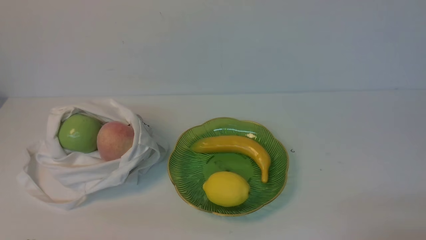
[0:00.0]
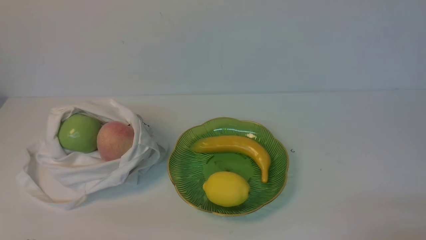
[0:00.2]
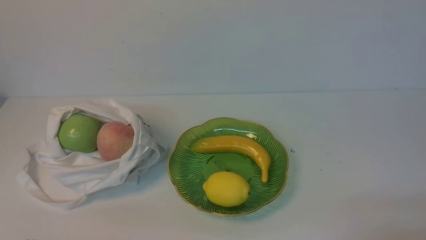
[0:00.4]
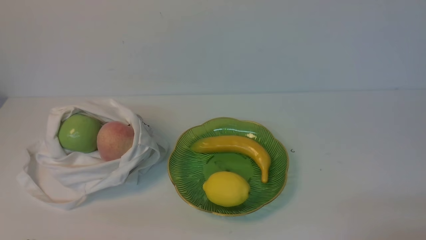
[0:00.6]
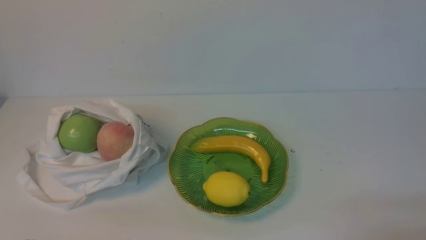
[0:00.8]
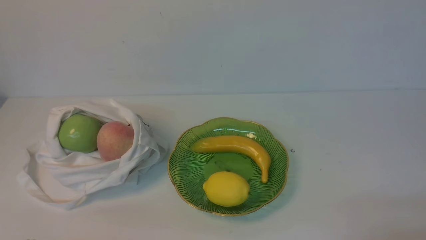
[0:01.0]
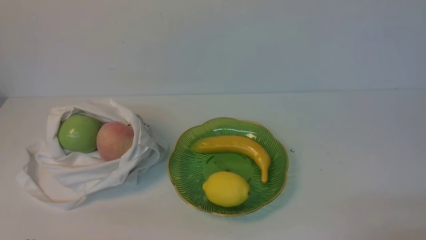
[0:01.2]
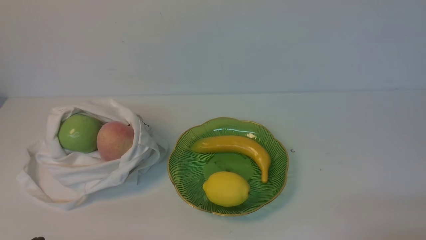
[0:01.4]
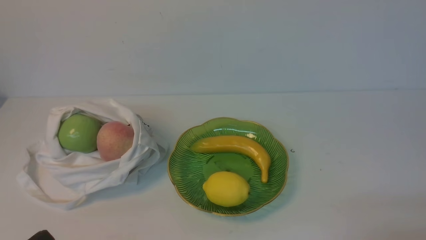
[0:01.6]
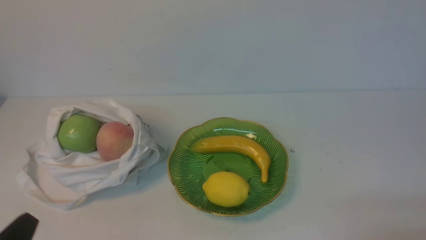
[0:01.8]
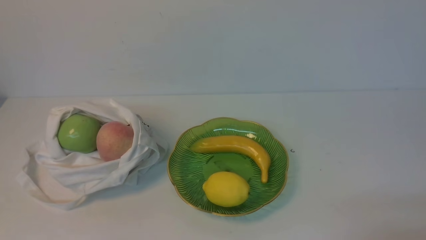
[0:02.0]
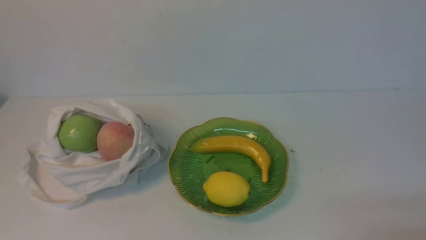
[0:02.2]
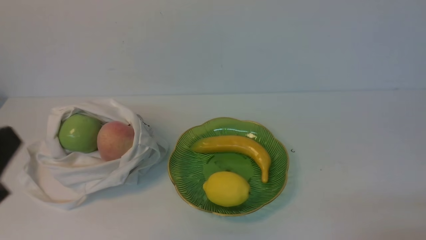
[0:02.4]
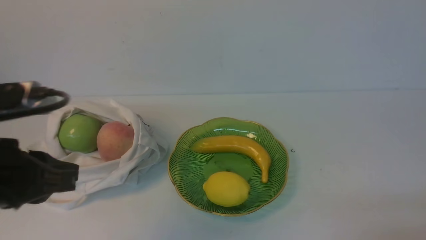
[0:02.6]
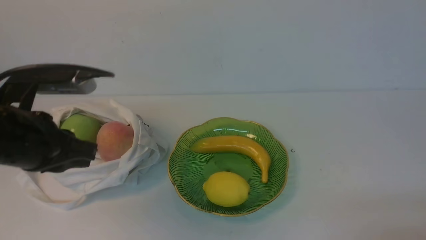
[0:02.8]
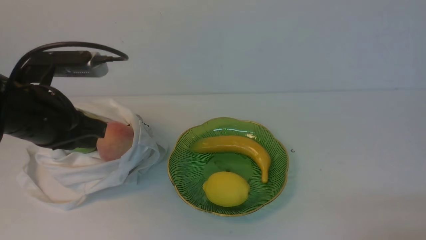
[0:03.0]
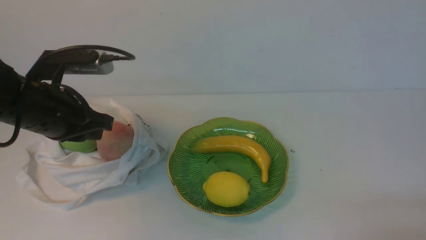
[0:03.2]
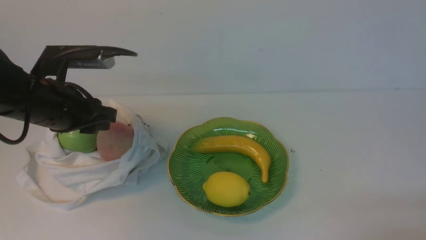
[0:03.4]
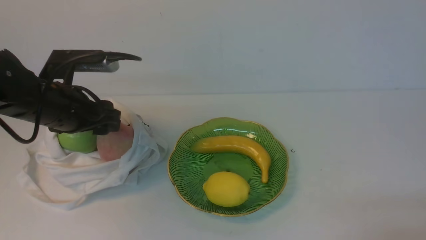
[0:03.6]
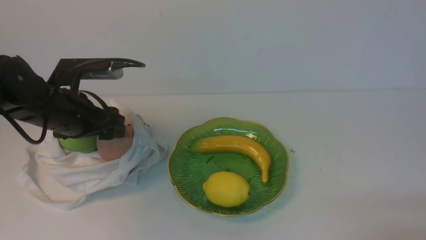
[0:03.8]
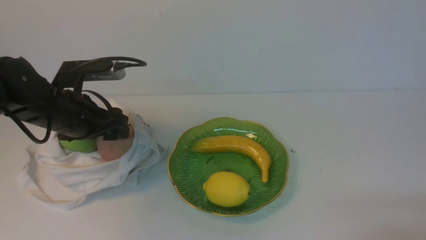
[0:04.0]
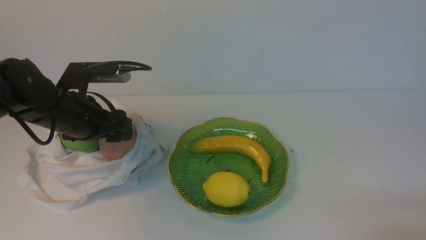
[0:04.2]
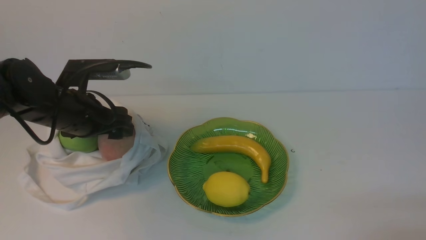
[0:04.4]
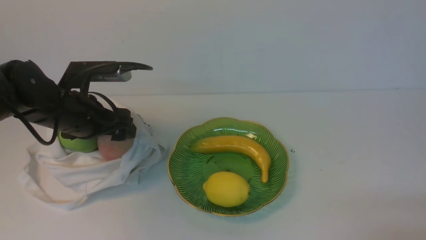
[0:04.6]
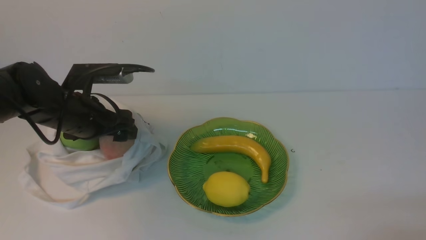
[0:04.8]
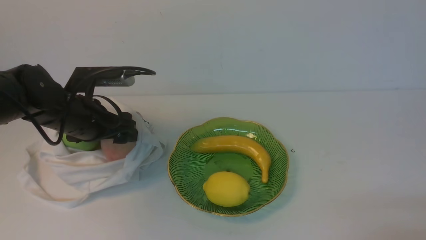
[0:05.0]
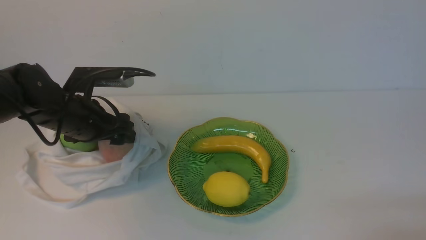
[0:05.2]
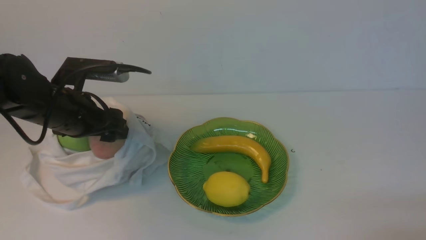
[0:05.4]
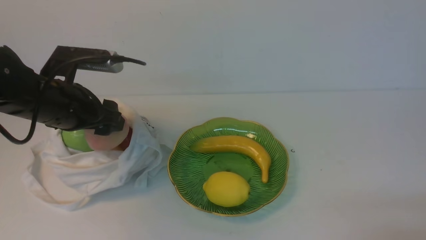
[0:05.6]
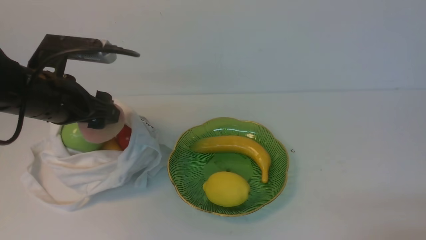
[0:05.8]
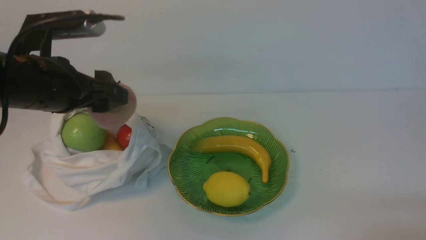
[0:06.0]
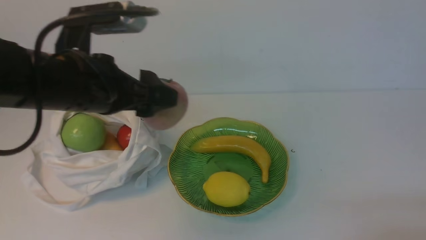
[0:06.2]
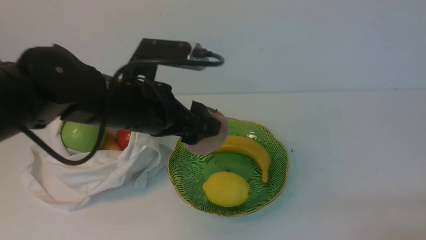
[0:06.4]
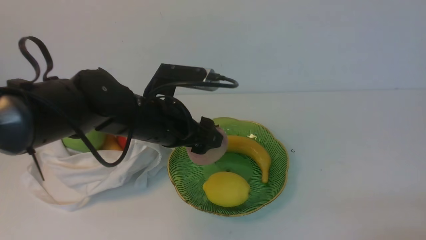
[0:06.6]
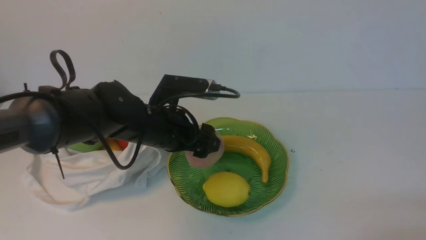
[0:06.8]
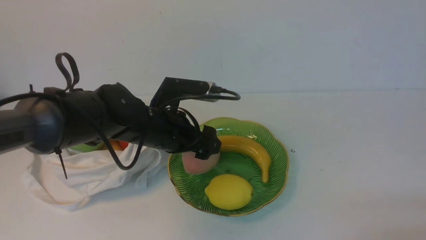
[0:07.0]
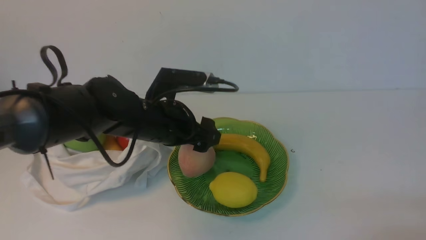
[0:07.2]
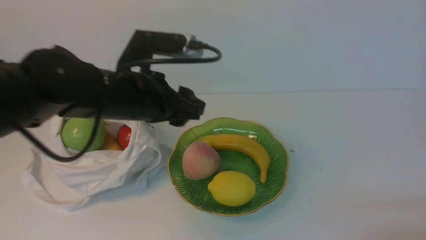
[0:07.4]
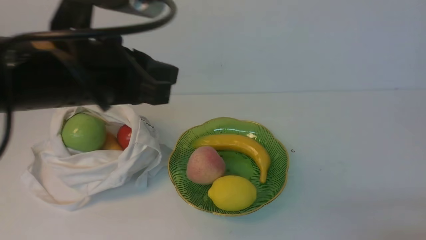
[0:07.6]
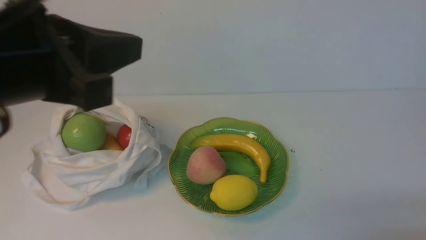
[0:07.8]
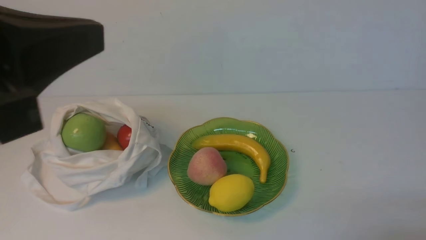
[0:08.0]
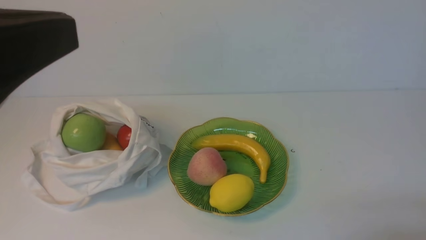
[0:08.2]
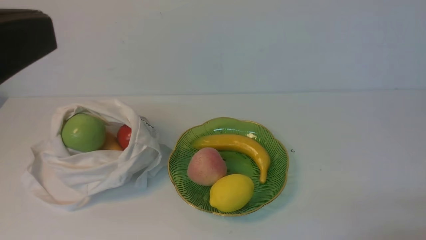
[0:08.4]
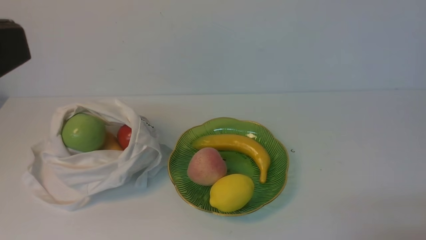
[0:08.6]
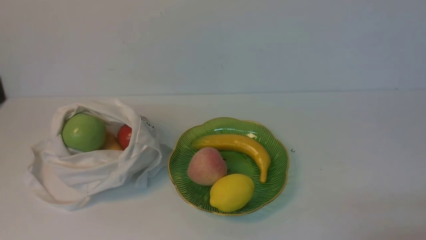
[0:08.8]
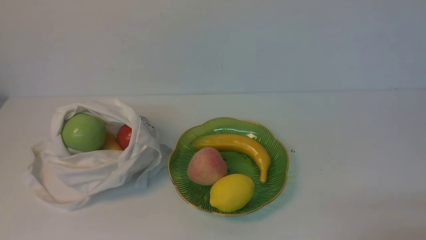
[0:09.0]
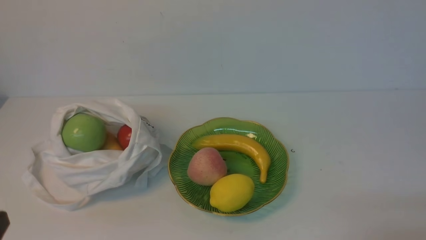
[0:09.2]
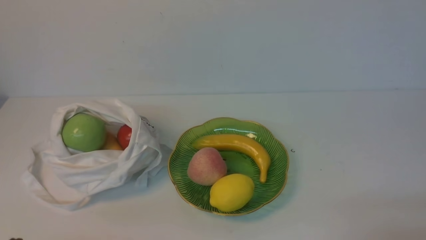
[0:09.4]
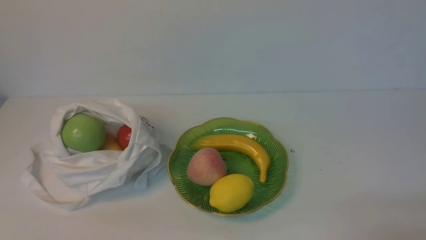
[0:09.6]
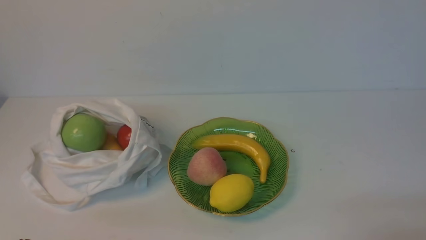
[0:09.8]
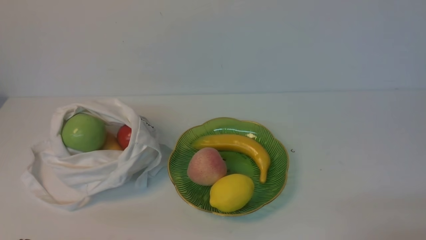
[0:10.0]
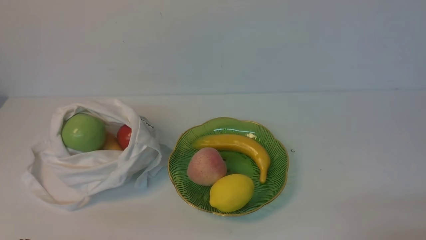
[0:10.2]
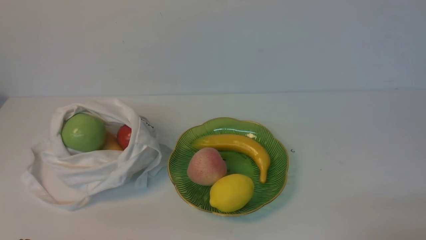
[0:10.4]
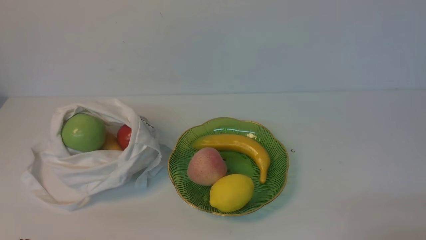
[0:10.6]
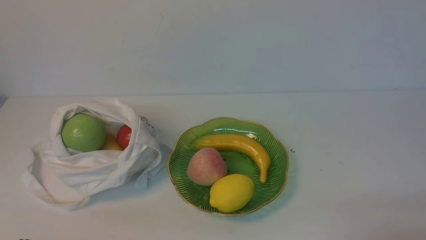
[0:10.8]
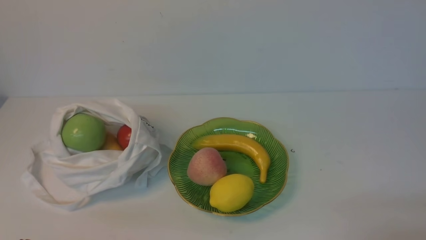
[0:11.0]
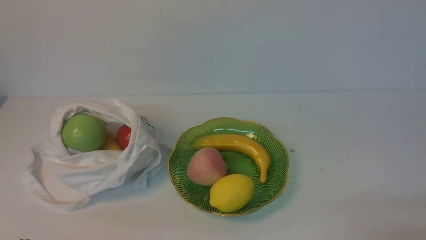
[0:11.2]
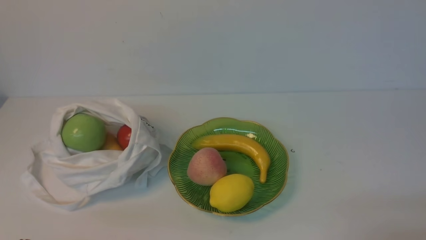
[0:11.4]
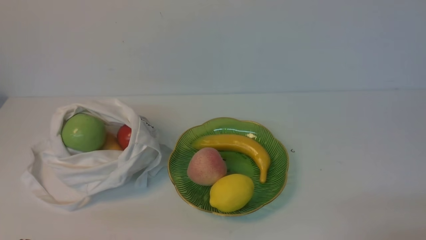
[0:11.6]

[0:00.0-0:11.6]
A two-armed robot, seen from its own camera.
Step, 0:00.0 to 0:05.4: use the left arm to grab a peach from the bag.
Step, 0:05.6 to 0:07.2: use the left arm to put the peach into the empty plate on the right.
0:01.4 to 0:02.8: The left gripper heads upward and forward, covering roughly 20 cm.
0:02.8 to 0:04.4: The left gripper moves forward and downward, roughly 15 cm, and opens.
0:04.4 to 0:05.8: The left gripper shifts by about 5 cm.
0:05.8 to 0:07.2: The left gripper travels to the right and downward by some 15 cm.
0:07.2 to 0:08.8: The left gripper moves backward, upward and to the left, about 35 cm, and closes.
0:10.2 to 0:11.6: The two grippers keep their place.

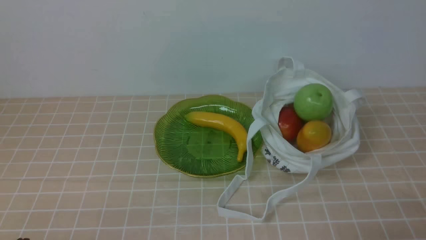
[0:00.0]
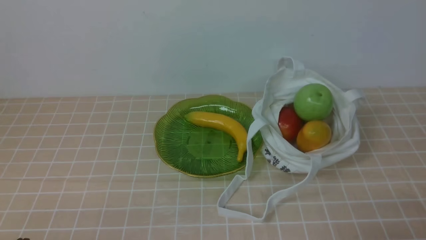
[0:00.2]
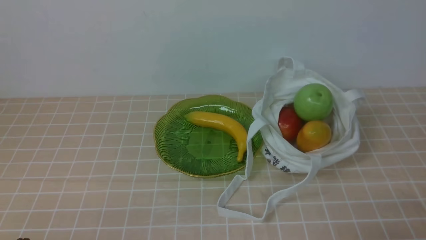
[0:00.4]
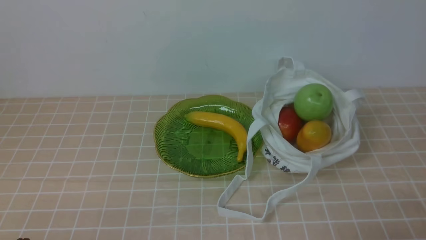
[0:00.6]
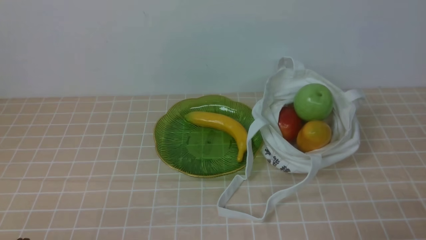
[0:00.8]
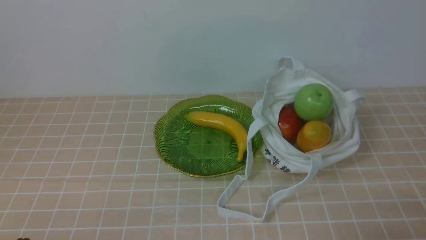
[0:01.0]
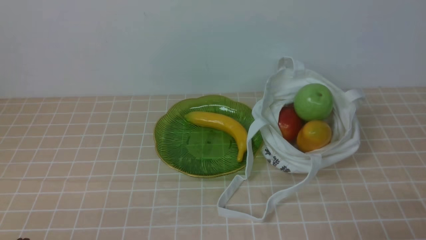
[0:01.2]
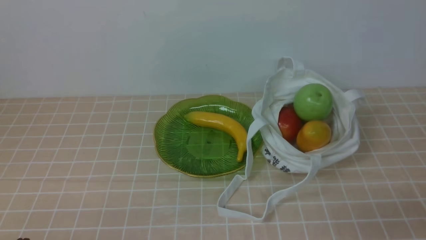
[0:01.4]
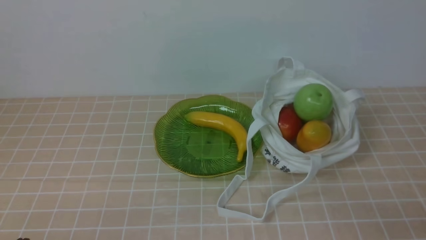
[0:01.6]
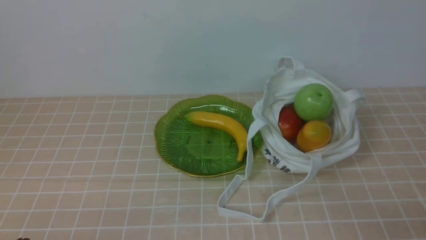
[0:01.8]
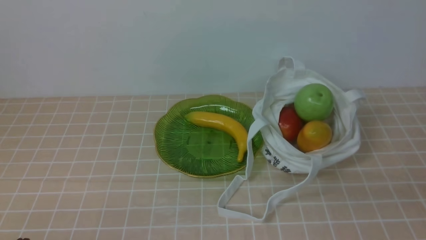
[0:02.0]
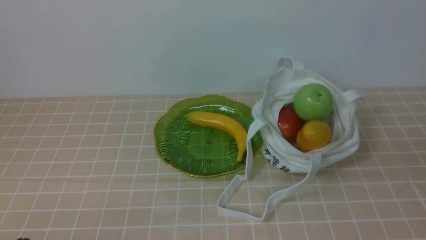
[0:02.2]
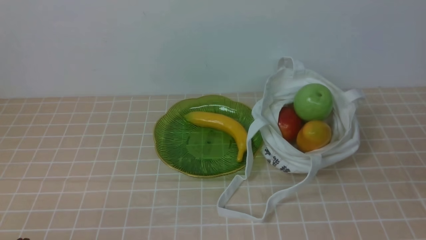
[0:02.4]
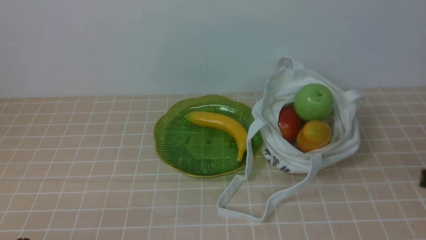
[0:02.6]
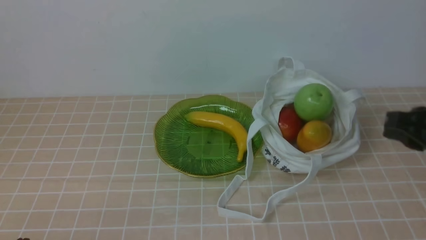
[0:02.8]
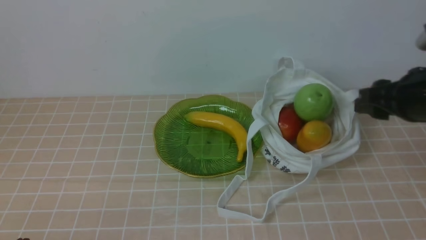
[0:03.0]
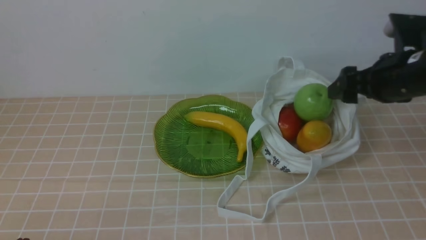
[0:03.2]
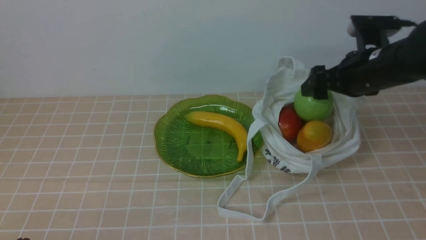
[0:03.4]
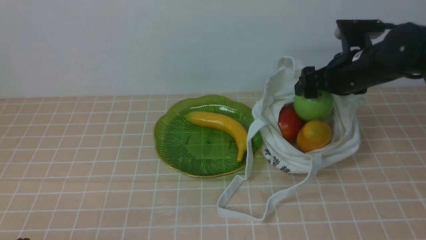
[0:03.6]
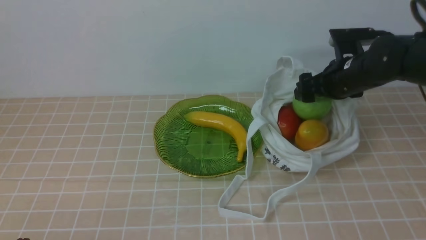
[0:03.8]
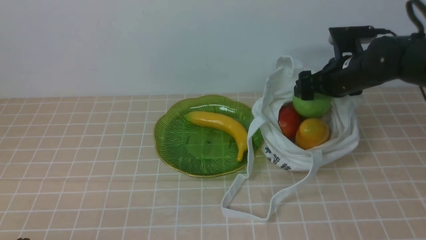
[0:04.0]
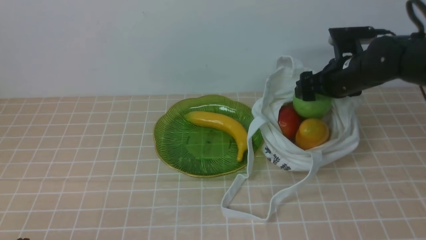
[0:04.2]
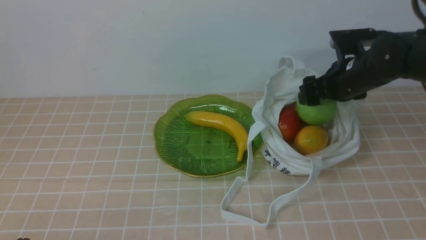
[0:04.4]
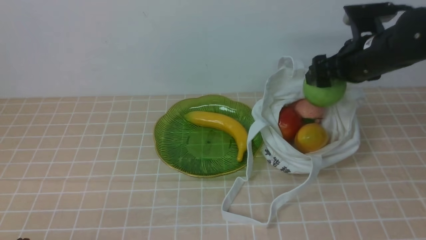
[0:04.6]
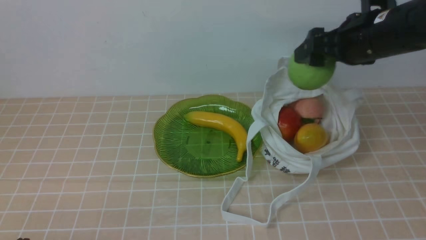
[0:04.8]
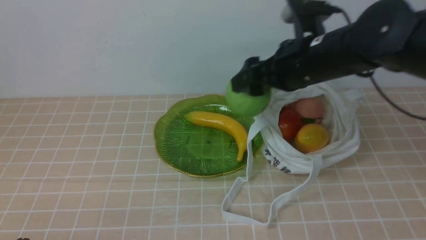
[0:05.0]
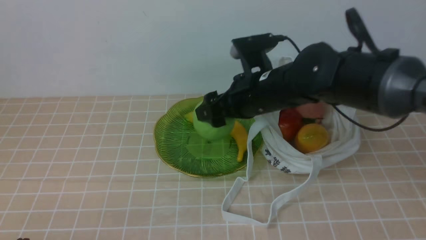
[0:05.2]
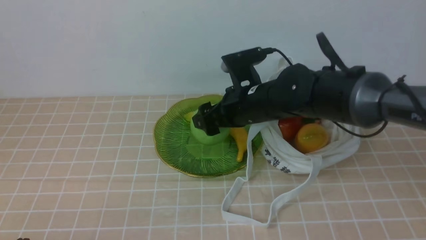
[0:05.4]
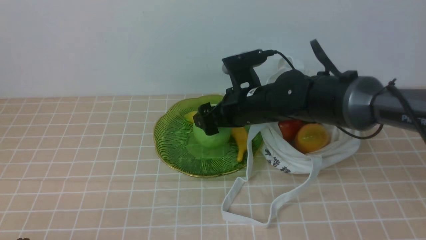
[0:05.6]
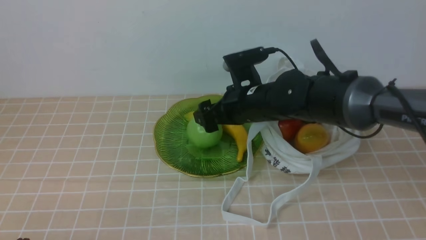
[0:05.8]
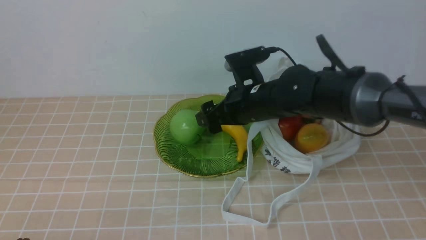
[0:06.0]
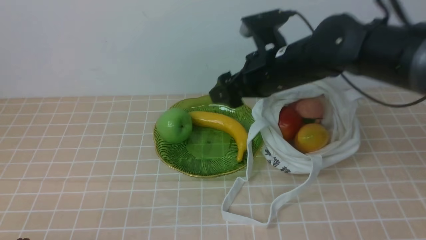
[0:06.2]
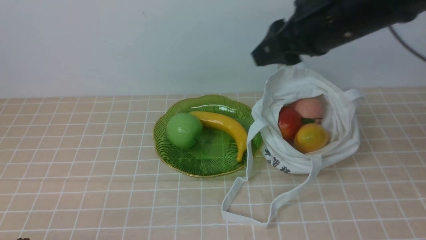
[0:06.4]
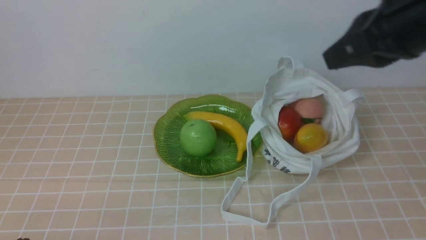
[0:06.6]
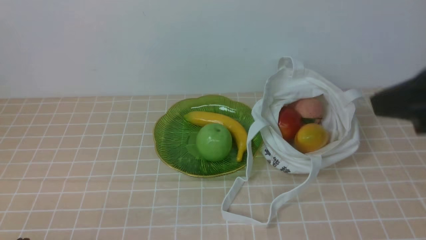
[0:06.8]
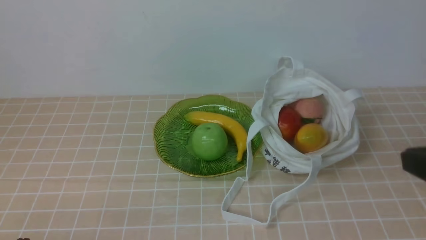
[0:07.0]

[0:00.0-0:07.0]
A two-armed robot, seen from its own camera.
Step, 0:00.0 to 0:04.4: use the right arm to grab an apple from the bag.
Step, 0:04.6 to 0:05.8: use the right arm to put the apple into the empty plate on the left.
0:01.4 to 0:02.8: The right gripper shifts about 20 cm forward and upward.
0:02.8 to 0:04.2: The right gripper is displaced forward by some 20 cm, and opens.
0:04.2 to 0:05.6: The right gripper heads to the left, covering some 15 cm.
0:05.6 to 0:07.0: The right gripper heads backward, to the right and upward, covering some 35 cm, and closes.
